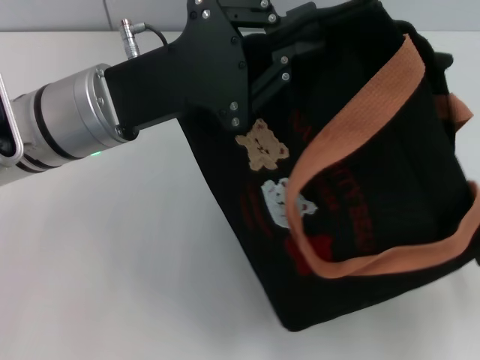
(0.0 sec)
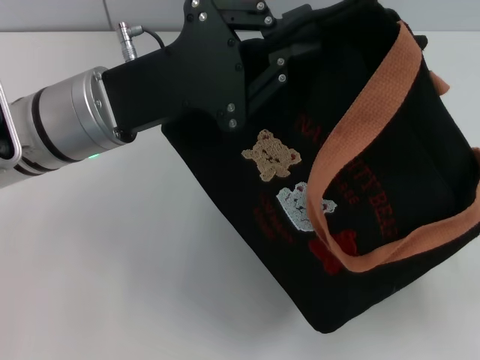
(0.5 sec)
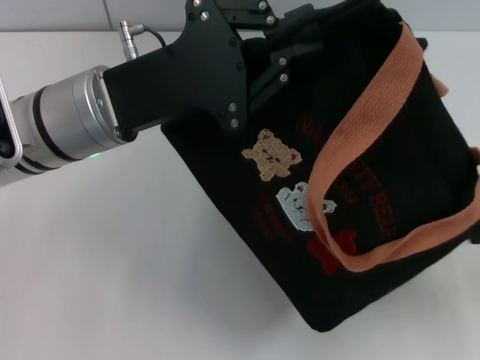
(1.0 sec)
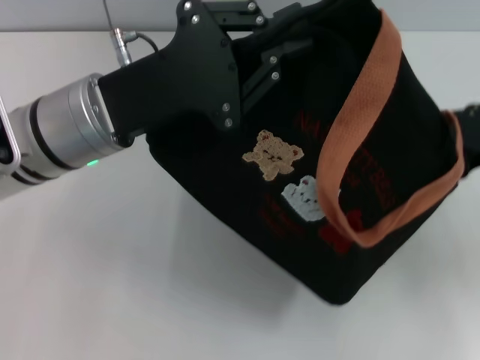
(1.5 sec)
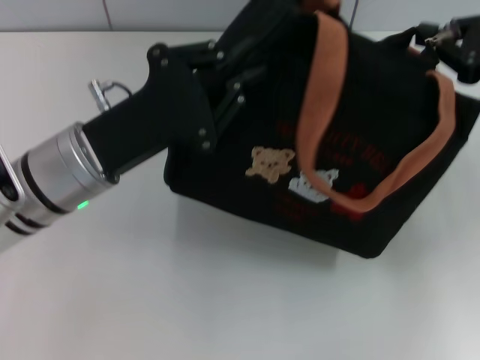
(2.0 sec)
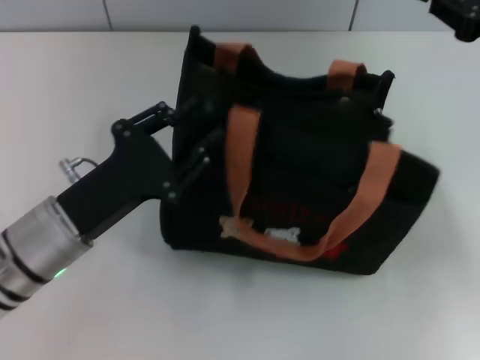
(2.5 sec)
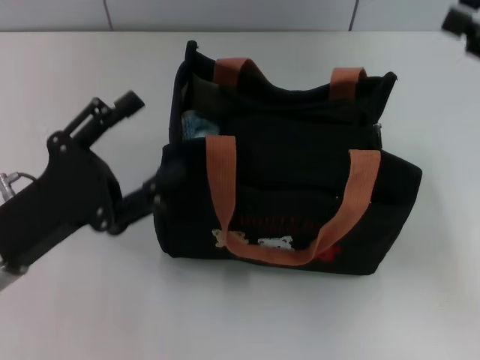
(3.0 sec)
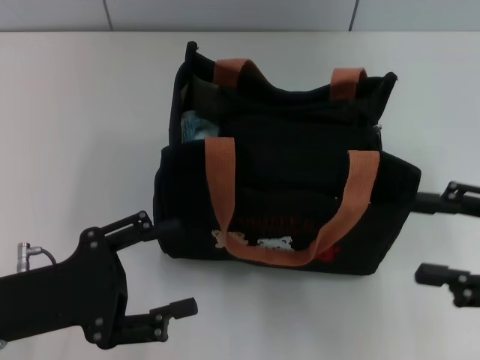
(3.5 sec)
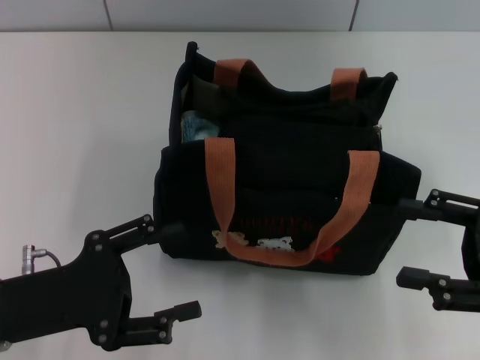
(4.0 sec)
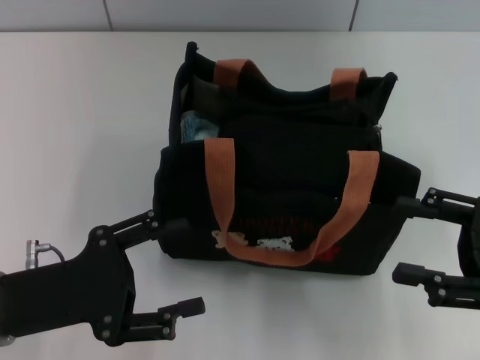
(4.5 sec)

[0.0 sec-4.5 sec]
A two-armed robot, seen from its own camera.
Step, 0.0 sec to 2.0 sec: Pull open the zipper with your right hand.
0.0 sec to 2.0 sec: The left gripper shifts by some 5 cm. The right gripper travels forward by some 10 cm, and opens and closes again.
2.0 sec to 4.5 sec: The right gripper moves backward and downward, roughly 15 cm, and opens its fingers, while the left gripper is displaced backward and to the left by roughly 10 cm, and opens up.

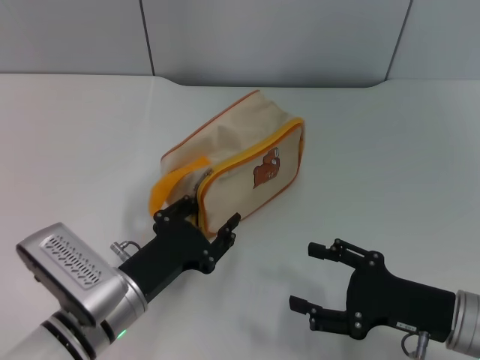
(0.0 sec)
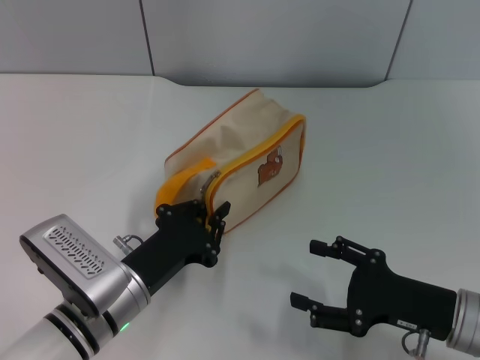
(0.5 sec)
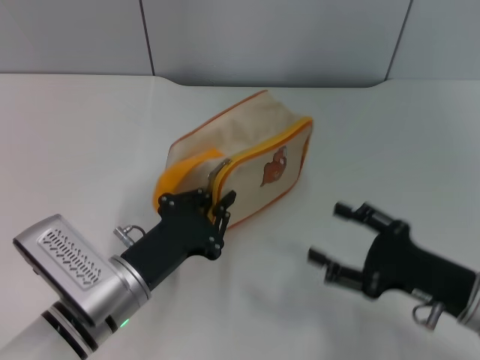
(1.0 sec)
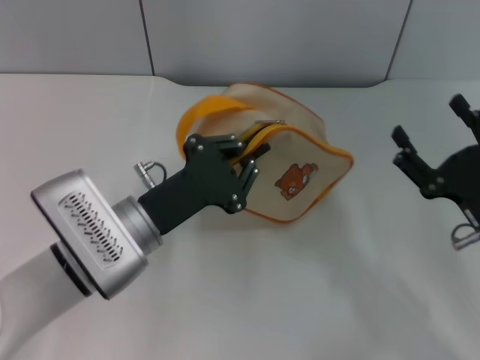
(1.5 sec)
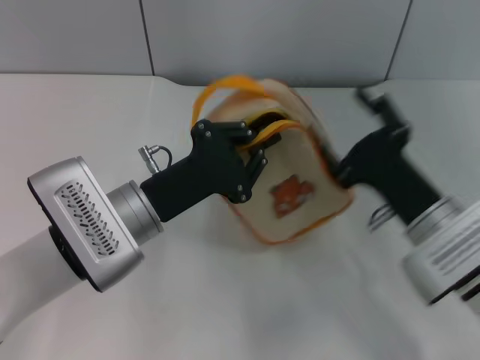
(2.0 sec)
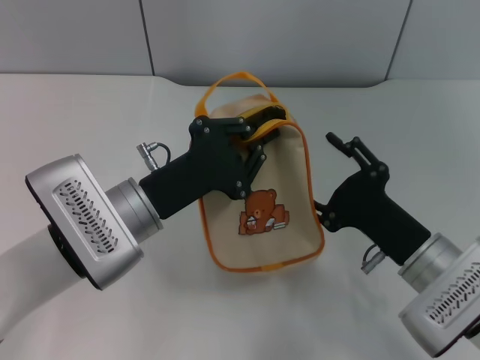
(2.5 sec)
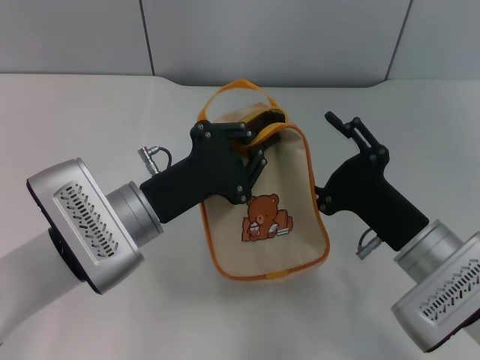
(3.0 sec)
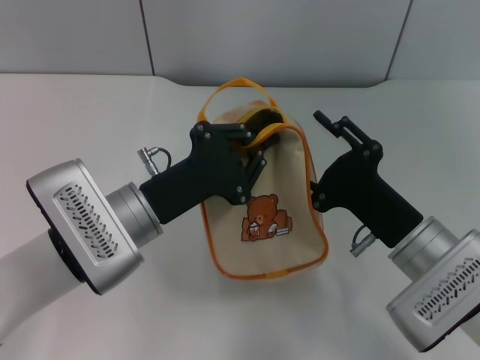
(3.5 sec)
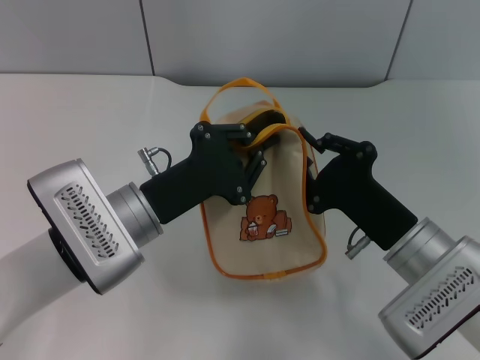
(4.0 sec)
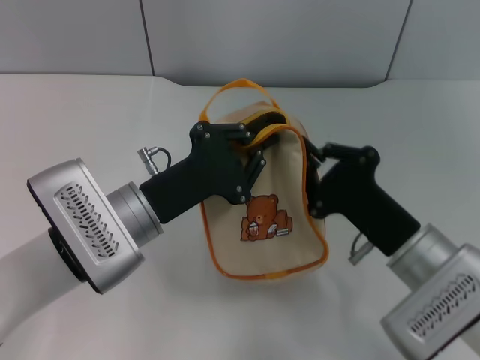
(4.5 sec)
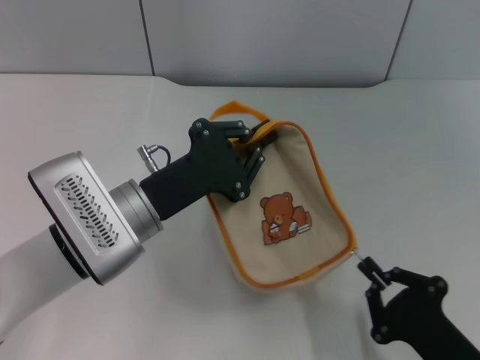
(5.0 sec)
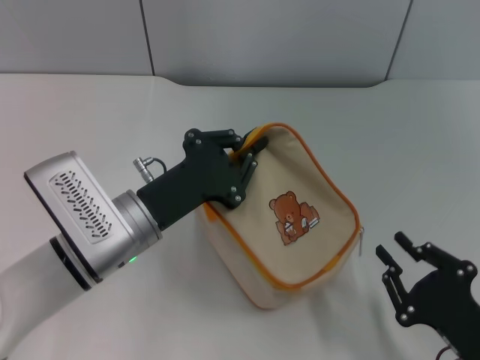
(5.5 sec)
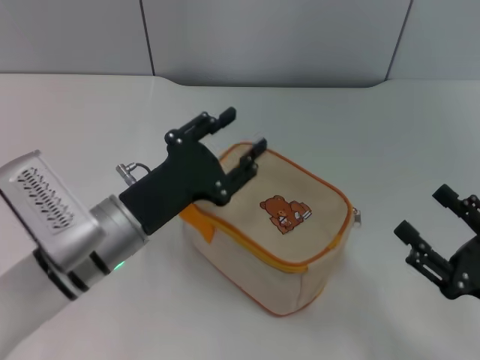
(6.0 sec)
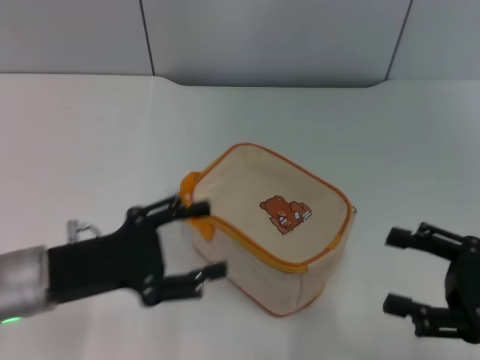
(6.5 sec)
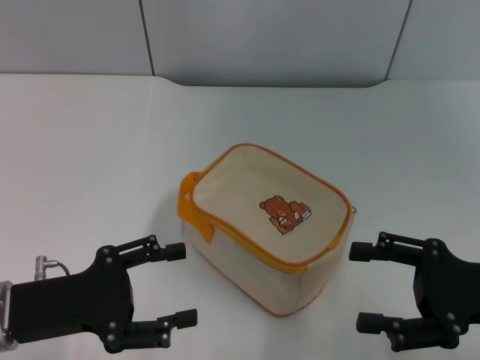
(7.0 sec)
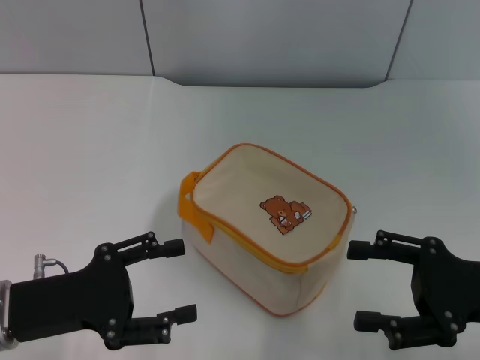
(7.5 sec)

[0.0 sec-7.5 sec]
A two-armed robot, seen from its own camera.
Step, 0.0 sec to 1.5 sec: Pick up the bag with left gripper.
Step, 2.0 sec to 5.5 sec: Unzip the zipper of bag with right gripper.
0.0 sec to 2.0 sec: The right gripper moves forward, some 5 cm. Meanwhile the left gripper goes some 10 cm upward and forward, and closes up.
2.0 sec to 4.0 sec: The right gripper closes up.
4.0 sec to 5.5 sec: The right gripper heads backward and to the right, covering about 15 cm.
5.5 sec to 7.5 sec: The right gripper moves upward and forward, about 10 cm, and opens; the left gripper heads to the left and backward, covering roughly 15 cm, and opens up.

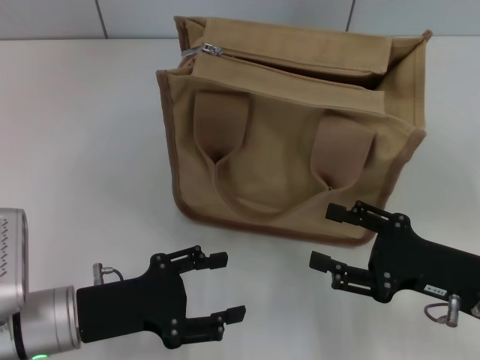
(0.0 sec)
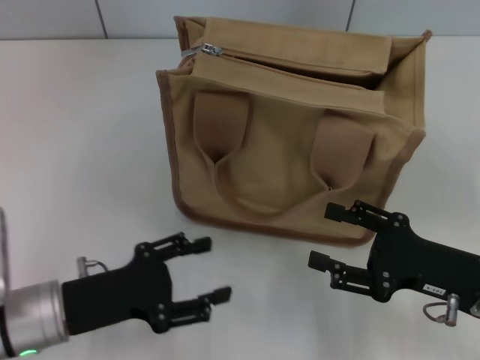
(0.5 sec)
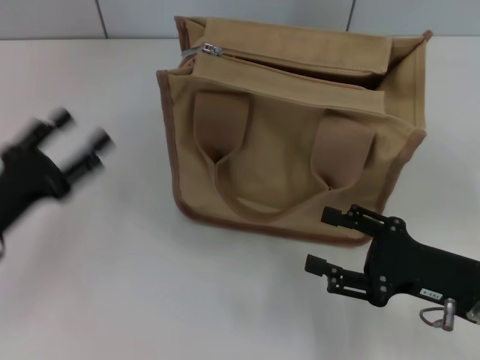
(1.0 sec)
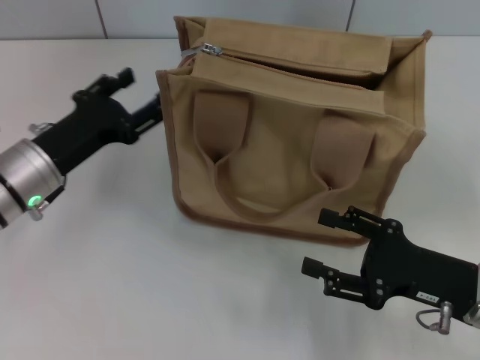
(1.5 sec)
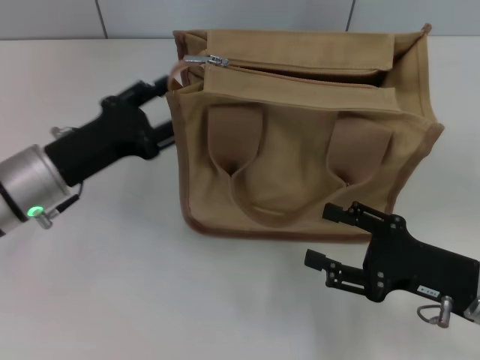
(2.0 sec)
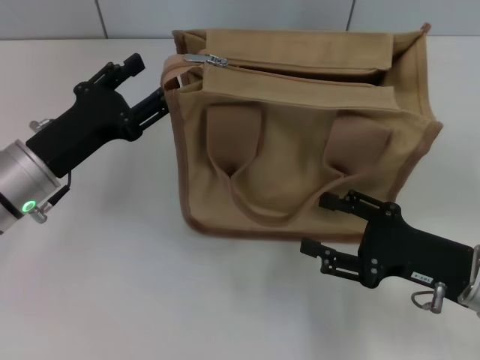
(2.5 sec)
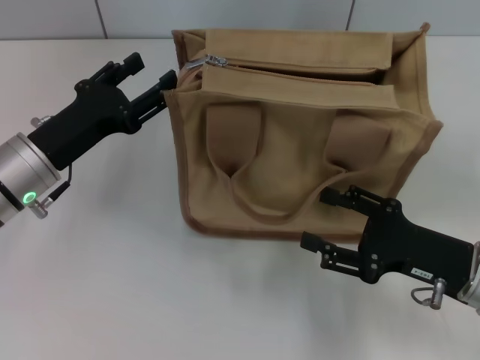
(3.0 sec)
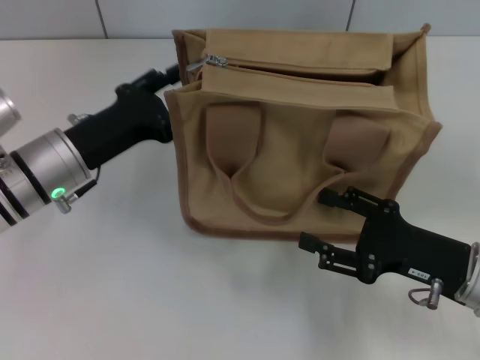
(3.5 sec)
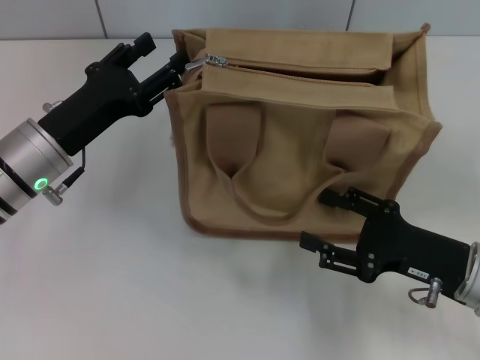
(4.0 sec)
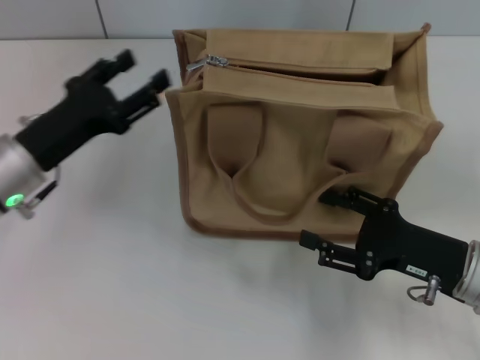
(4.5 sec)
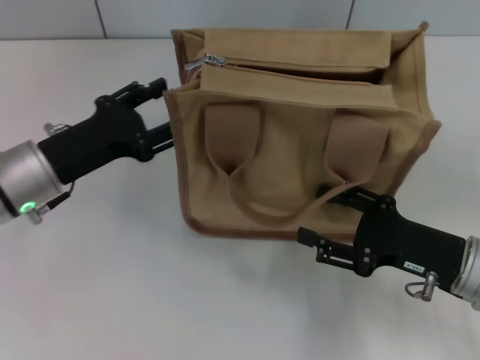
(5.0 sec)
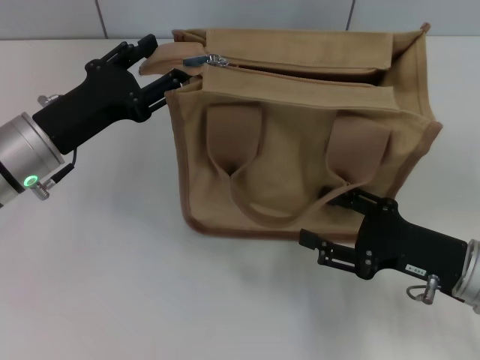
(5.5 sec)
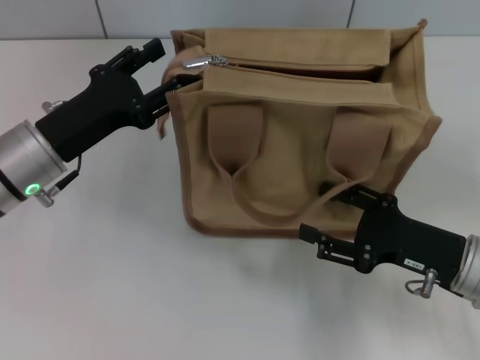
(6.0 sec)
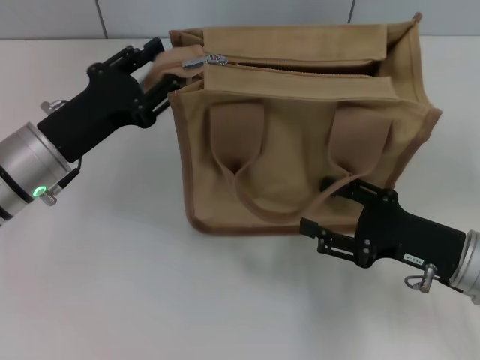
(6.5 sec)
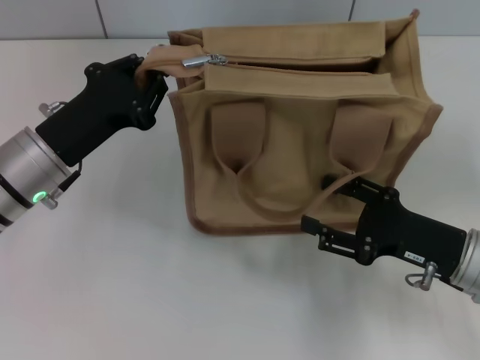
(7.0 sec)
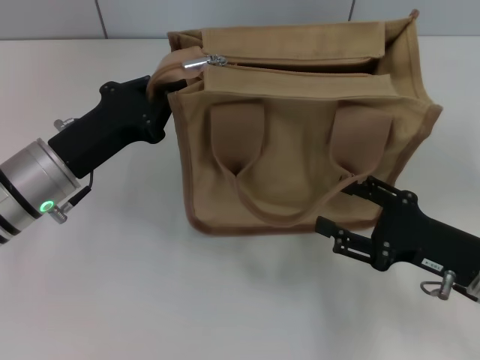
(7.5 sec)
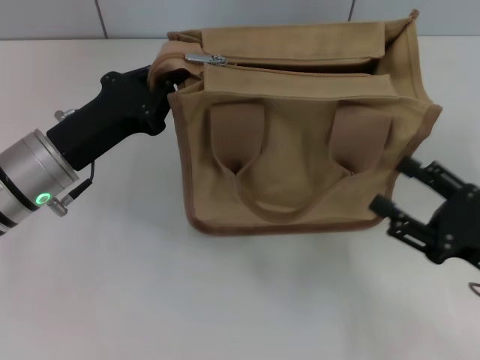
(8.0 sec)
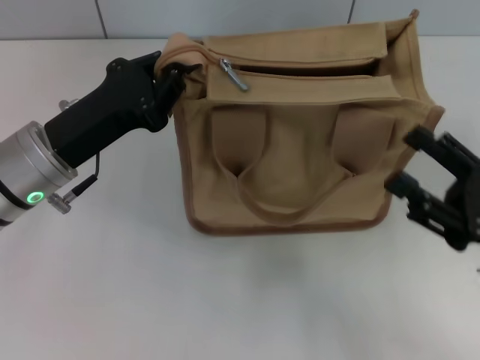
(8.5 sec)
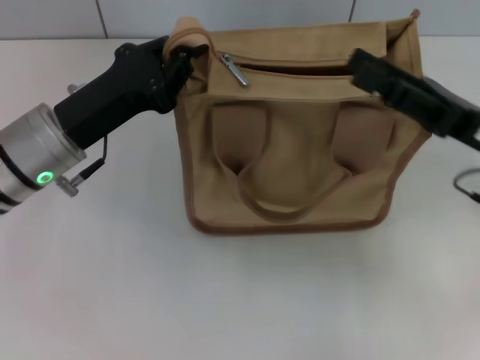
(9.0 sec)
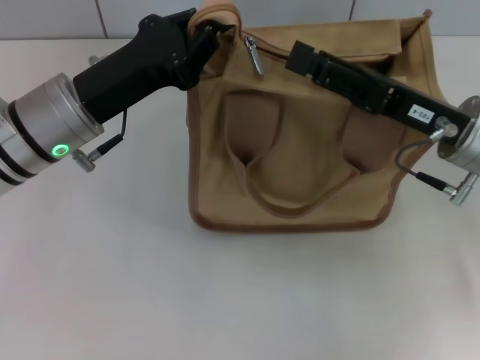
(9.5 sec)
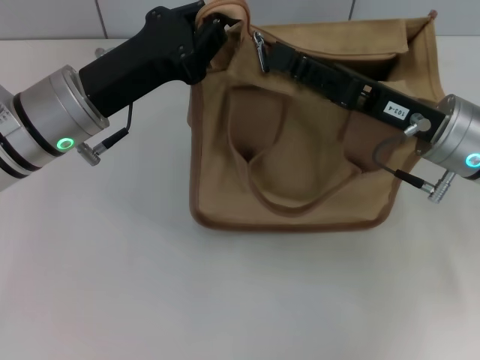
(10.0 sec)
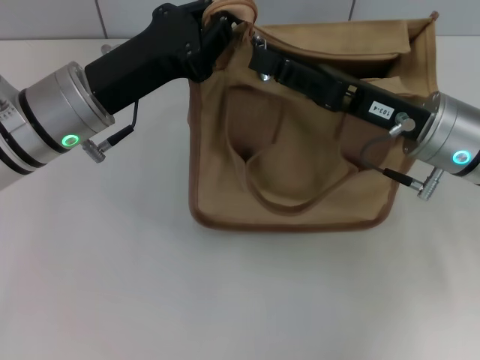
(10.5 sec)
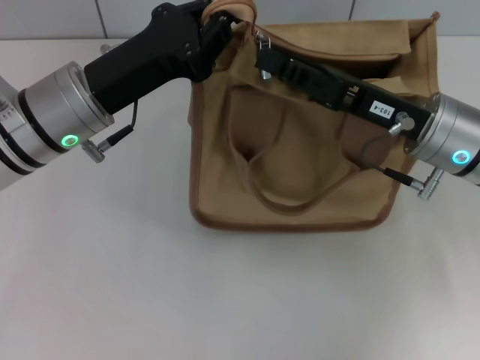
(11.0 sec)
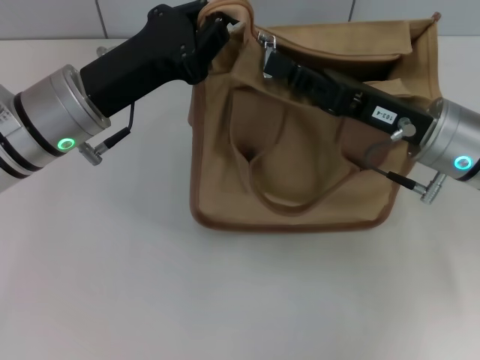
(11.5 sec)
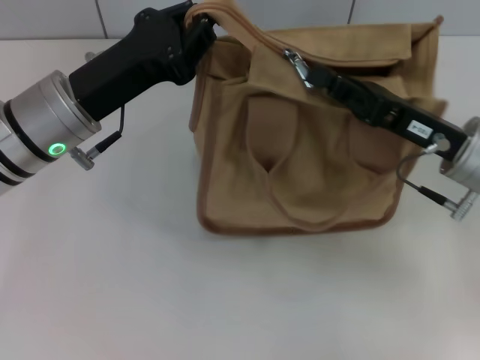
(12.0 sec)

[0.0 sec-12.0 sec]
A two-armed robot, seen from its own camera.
0.0 sec to 2.0 sec: The left gripper shifts some 10 cm forward.
2.0 sec to 6.0 sec: There are only small adjustments of the grippers.
6.0 sec to 8.0 sec: The left gripper closes its fingers, while the right gripper changes place by some 5 cm.
8.0 sec to 10.0 sec: The left gripper ends up roughly 5 cm from where it was. Meanwhile the right gripper goes some 15 cm forward, to the left and upward.
10.0 sec to 12.0 sec: The right gripper closes its fingers.

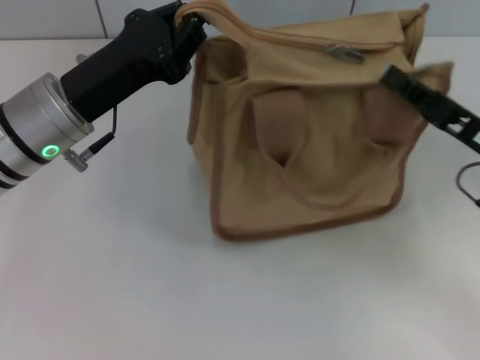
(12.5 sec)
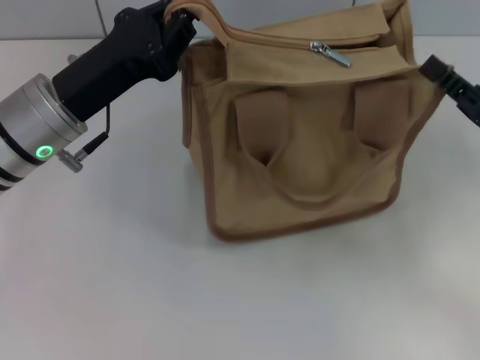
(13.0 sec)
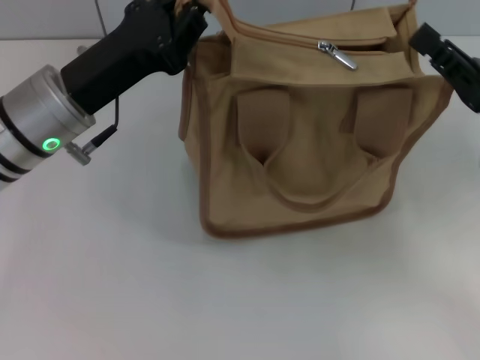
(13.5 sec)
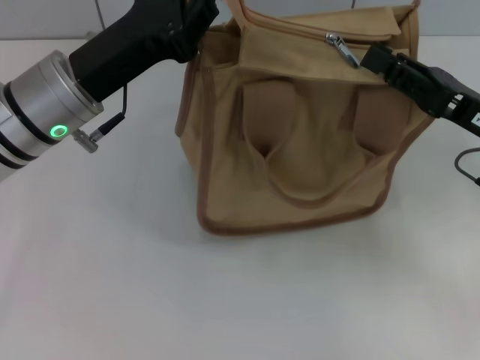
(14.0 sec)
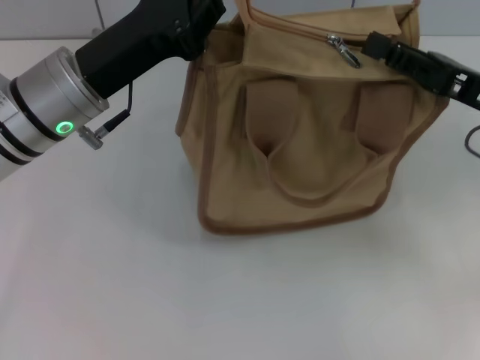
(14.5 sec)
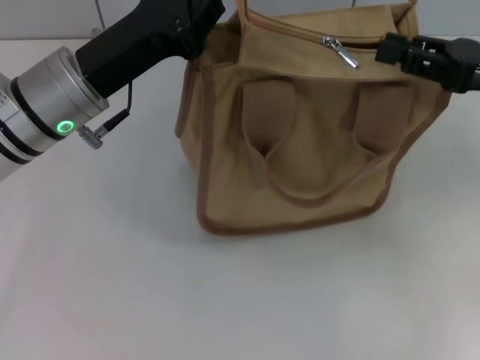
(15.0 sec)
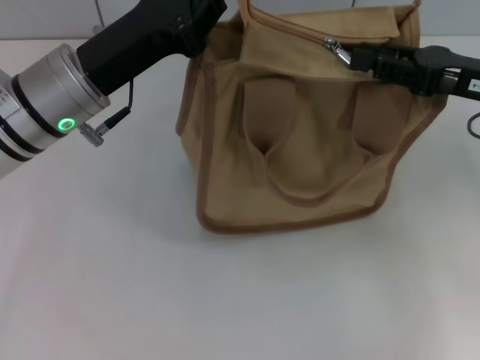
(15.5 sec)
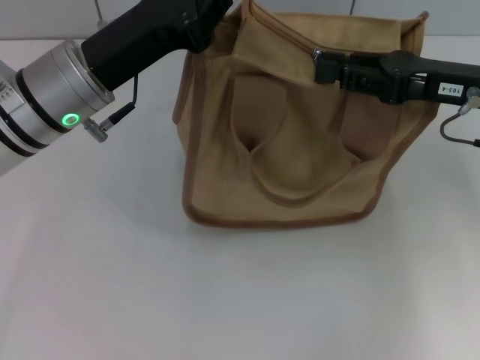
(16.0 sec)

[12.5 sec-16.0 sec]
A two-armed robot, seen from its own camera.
12.5 sec to 14.5 sec: The right gripper travels upward by approximately 5 cm, and opens up.
14.5 sec to 16.0 sec: The grippers move only a little.
